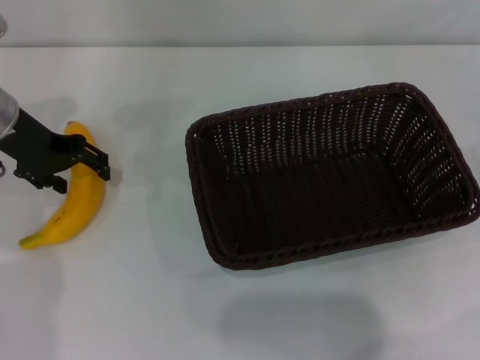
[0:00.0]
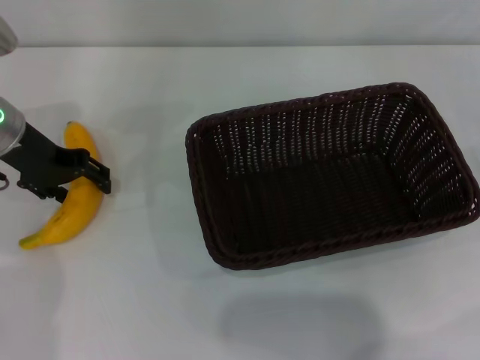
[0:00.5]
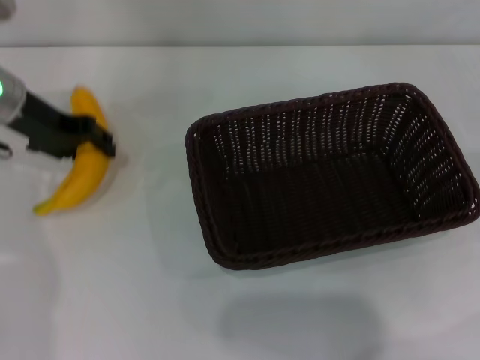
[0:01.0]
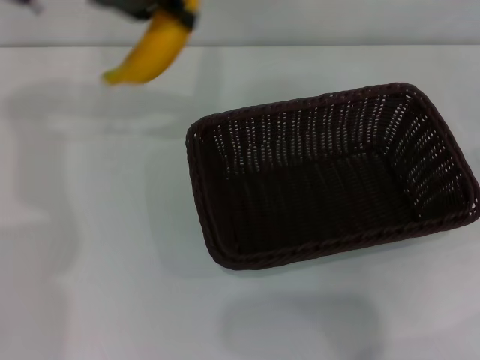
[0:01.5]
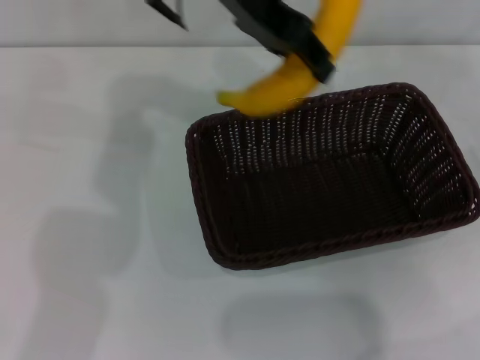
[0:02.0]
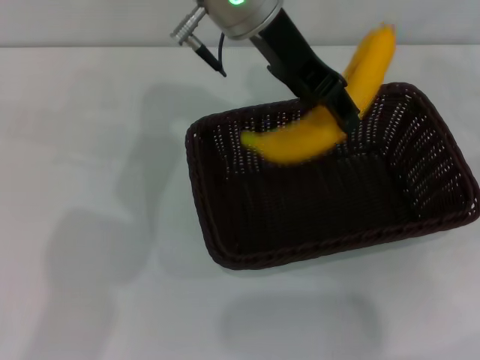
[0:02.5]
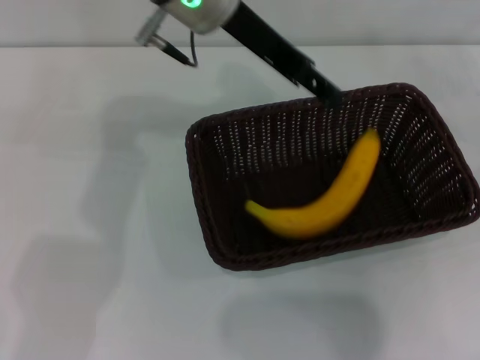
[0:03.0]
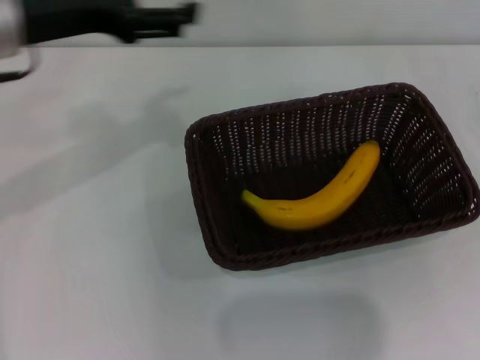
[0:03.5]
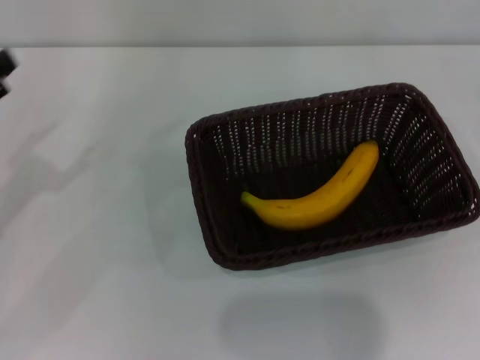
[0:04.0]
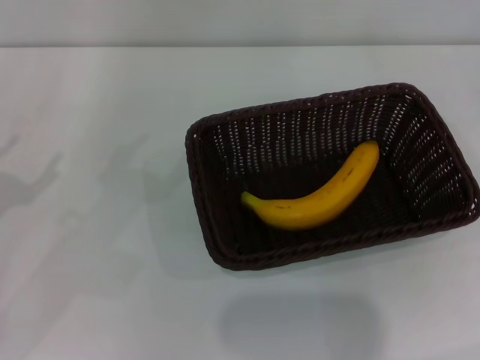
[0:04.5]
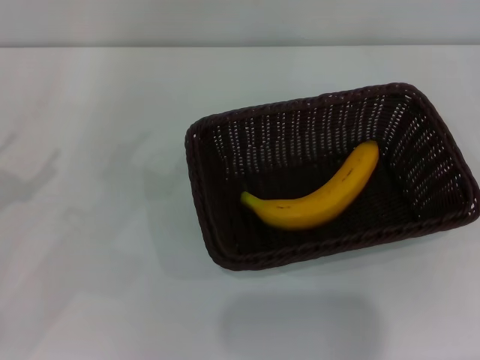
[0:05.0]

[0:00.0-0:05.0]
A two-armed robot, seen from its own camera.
Step, 0:01.5 to 0:03.0: Place the banana into the dark basket with the left gripper.
0:00.0 to 0:02.5: The left gripper heads to the right and upward, covering about 25 cm.
0:02.5 to 0:05.0: The right gripper shifts some 10 cm to the right and backward, and closes up. The left gripper moves to the left, backward and downward, approximately 40 cm, and opens its fingers.
